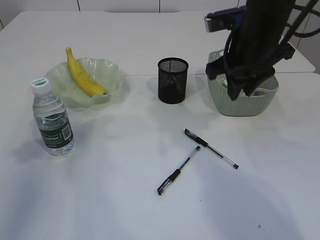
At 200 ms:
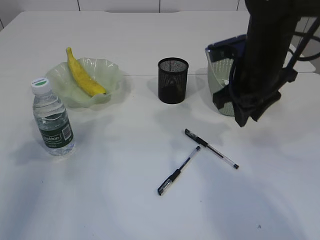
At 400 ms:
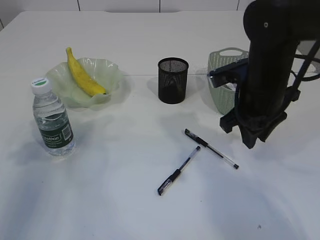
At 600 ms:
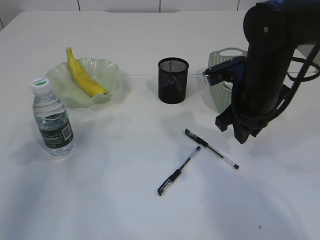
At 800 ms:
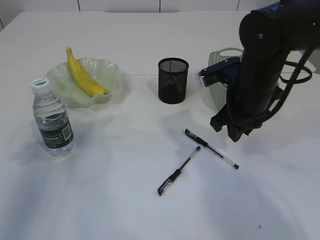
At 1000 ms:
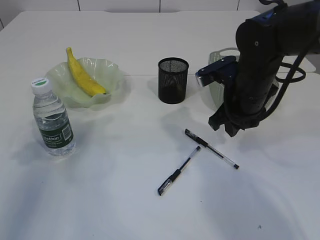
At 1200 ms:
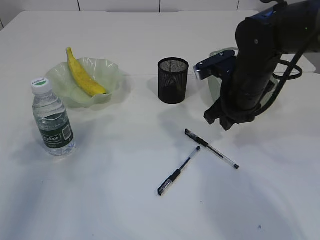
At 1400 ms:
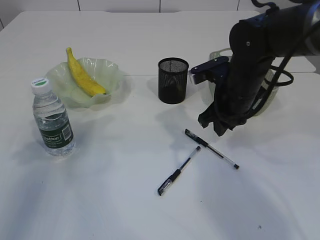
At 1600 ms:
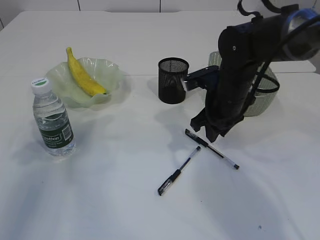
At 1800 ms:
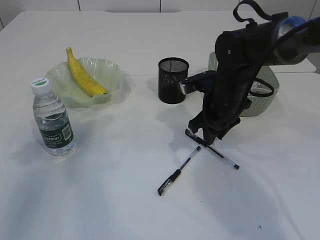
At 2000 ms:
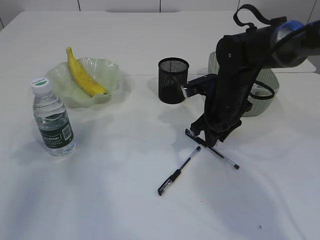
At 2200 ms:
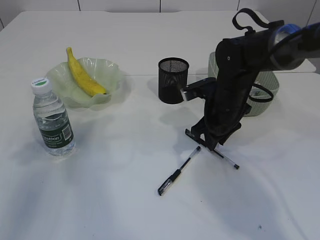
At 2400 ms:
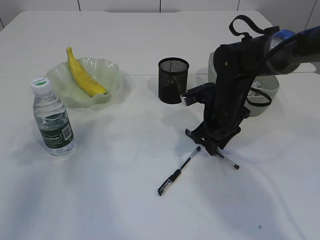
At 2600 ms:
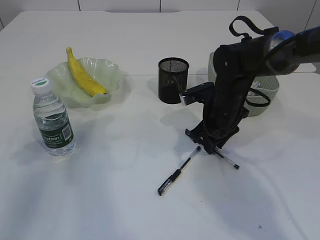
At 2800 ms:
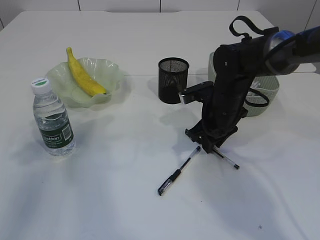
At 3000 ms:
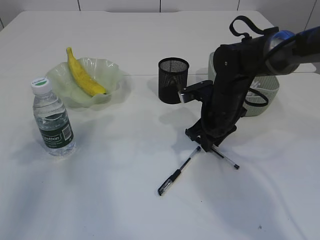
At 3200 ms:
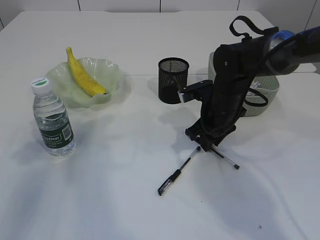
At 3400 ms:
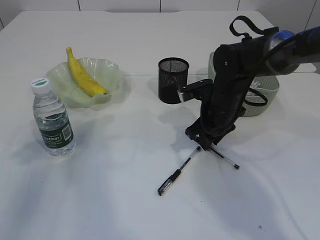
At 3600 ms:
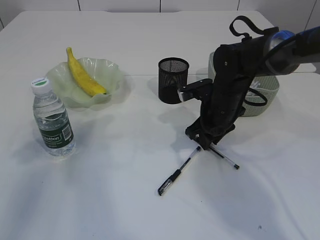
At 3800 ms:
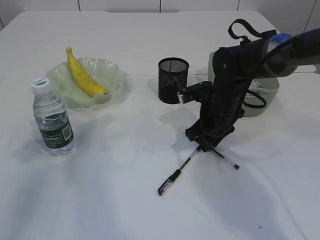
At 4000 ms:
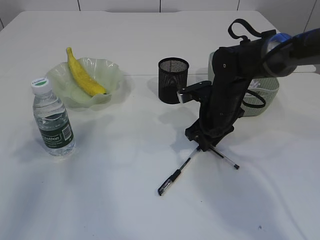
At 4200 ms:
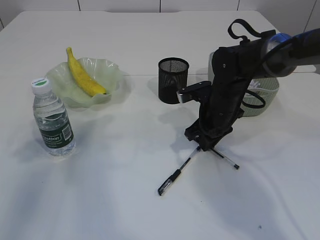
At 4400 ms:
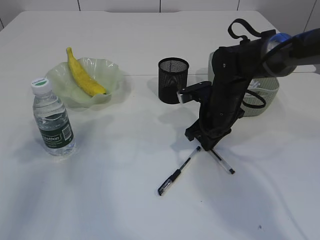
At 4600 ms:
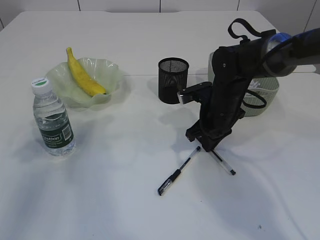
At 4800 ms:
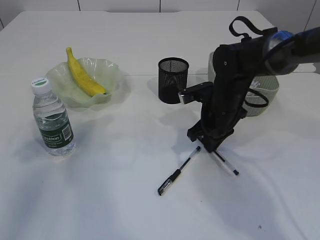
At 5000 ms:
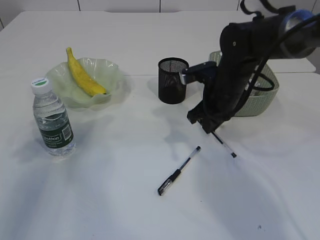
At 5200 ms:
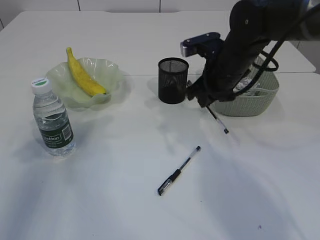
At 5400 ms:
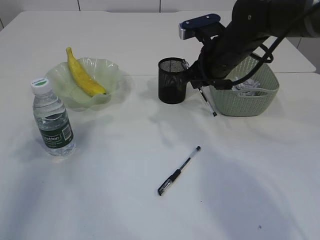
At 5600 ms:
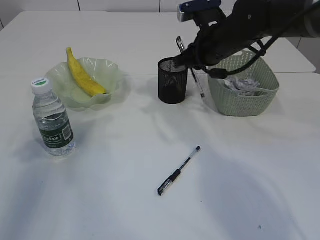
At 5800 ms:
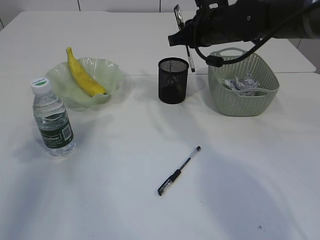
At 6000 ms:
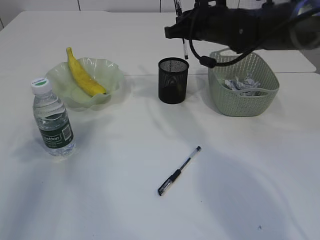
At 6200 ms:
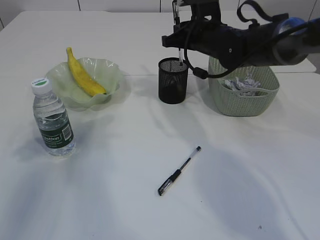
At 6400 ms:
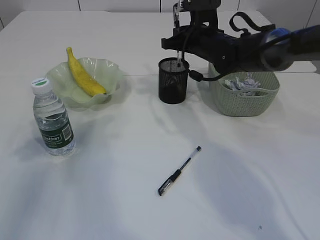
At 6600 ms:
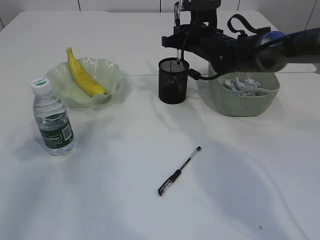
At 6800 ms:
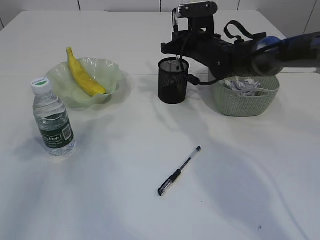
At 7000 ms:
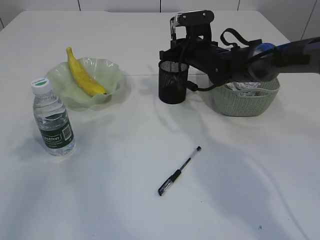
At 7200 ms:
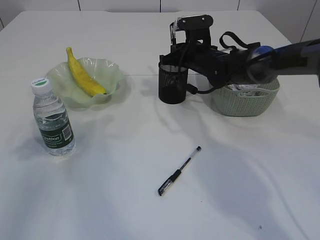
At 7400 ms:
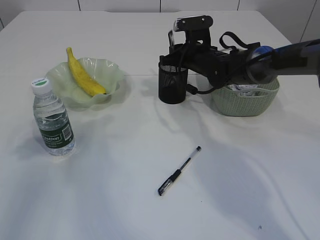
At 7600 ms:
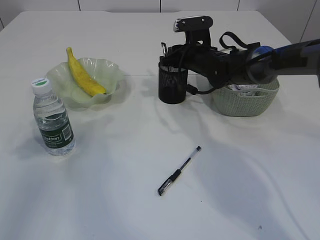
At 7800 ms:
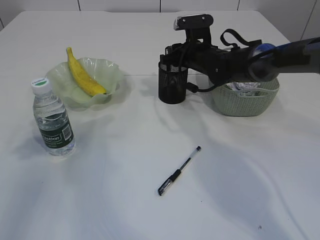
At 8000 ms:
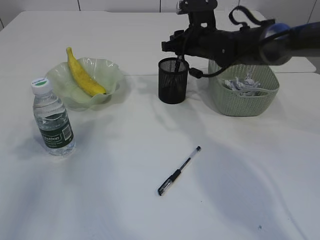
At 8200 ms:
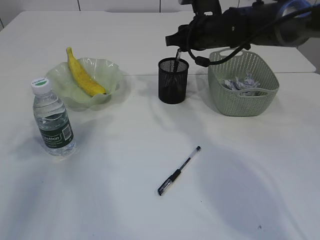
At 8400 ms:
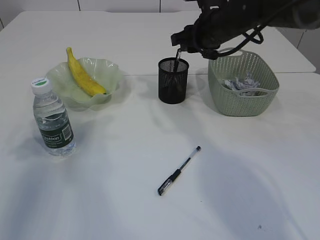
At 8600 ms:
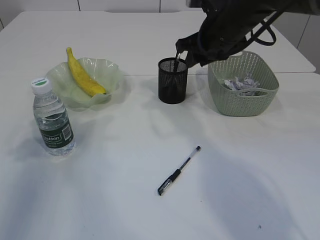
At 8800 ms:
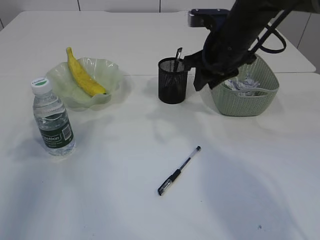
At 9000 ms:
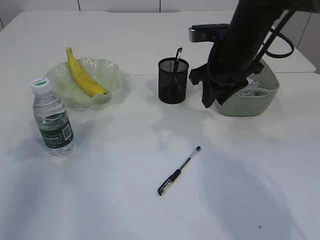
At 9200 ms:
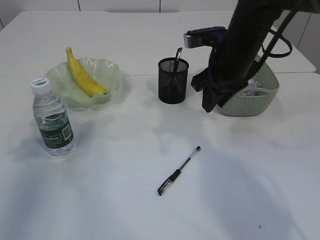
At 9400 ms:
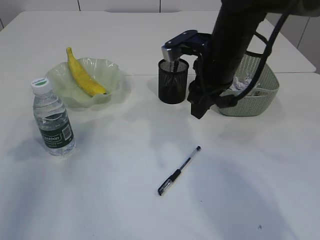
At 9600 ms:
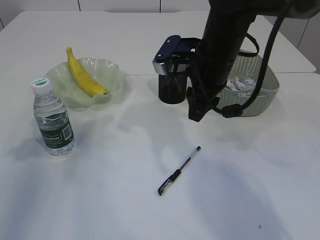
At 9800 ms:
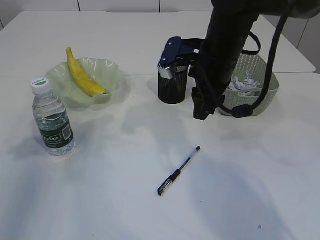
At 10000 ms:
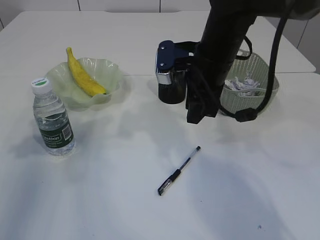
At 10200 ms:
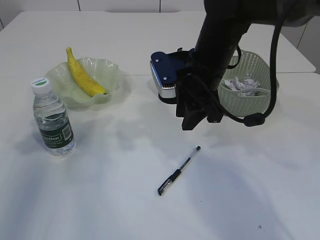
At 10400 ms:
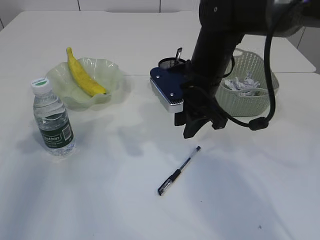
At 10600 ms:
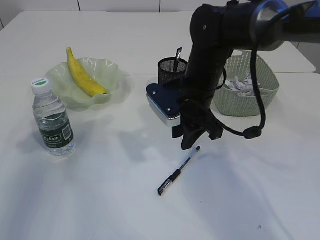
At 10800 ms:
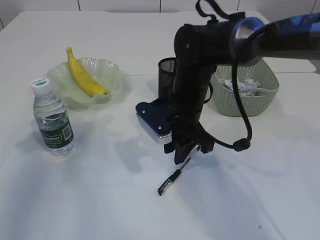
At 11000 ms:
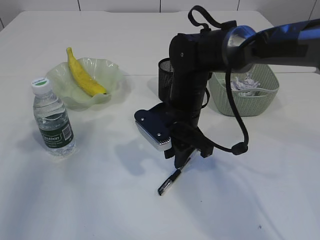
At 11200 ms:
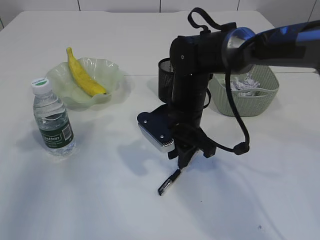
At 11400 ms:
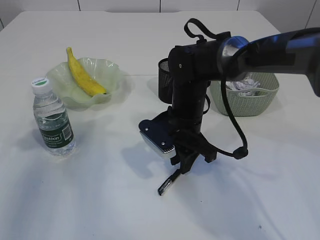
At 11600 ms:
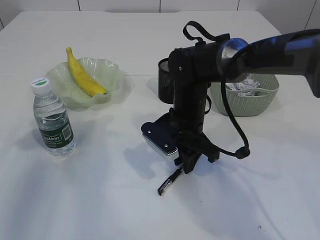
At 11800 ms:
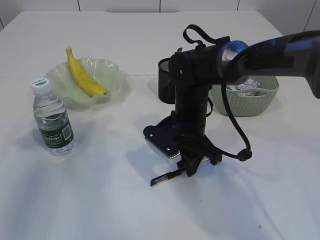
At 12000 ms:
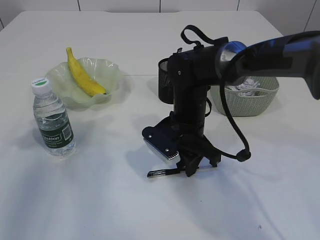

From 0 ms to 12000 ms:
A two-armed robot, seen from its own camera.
Step, from 0 ms to 5000 ms: Pick up the pen with right arm.
Step, from 5200 ms to 8200 ms: Place the pen into the pen holder.
From 0 ms to 1600 ms: The right gripper travels downward by approximately 10 cm.
From 1600 ms to 3000 ms: The grippers make only small movements.
From 3000 ms to 4400 ms: The right gripper closes its fingers.
From 4400 ms to 6000 ms: The right gripper travels upward and forward by about 15 cm.
From 6000 ms to 7600 ms: The right gripper travels downward by some 10 cm, and opens up.
From 7600 ms to 9000 ms: The right gripper shifts about 15 cm backward and upward.
From 9000 ms to 10400 ms: The right gripper travels to the left by about 5 cm.
From 10400 ms to 12000 ms: The right gripper moves downward, approximately 10 cm.

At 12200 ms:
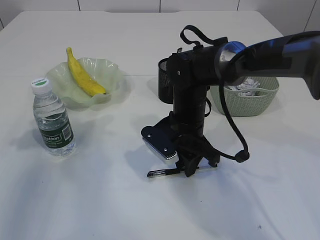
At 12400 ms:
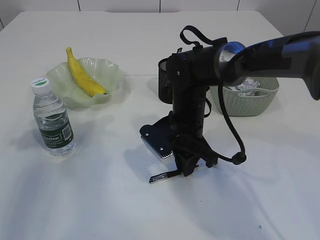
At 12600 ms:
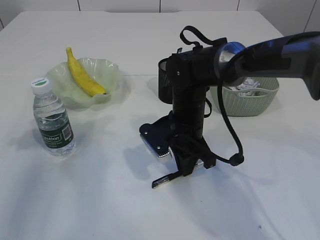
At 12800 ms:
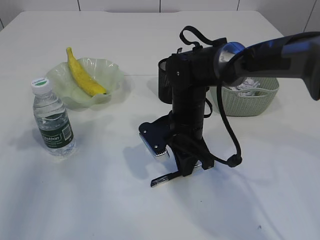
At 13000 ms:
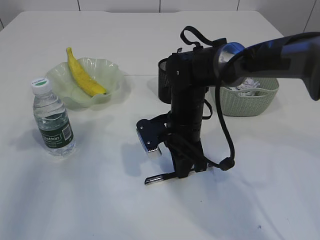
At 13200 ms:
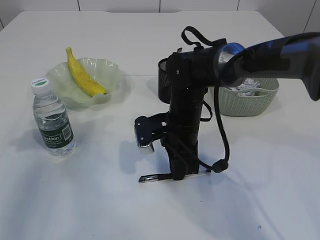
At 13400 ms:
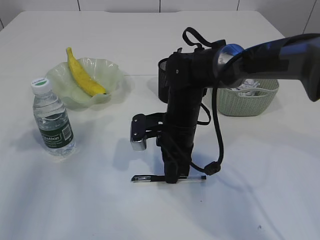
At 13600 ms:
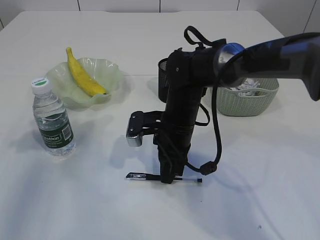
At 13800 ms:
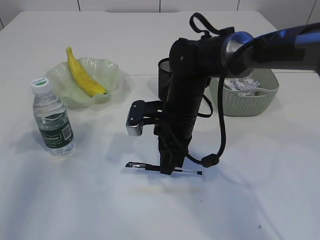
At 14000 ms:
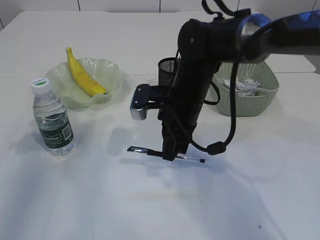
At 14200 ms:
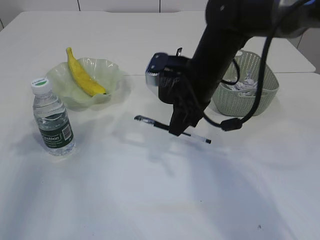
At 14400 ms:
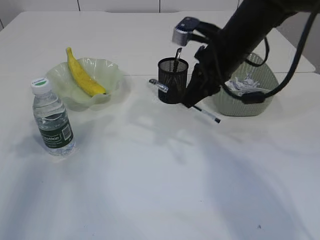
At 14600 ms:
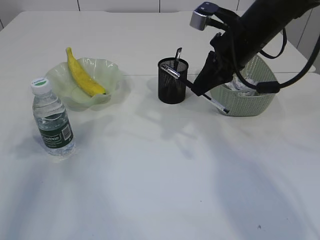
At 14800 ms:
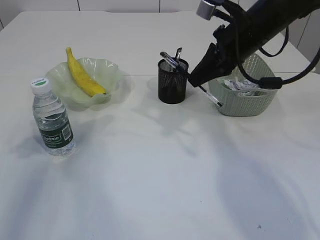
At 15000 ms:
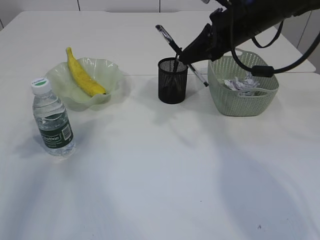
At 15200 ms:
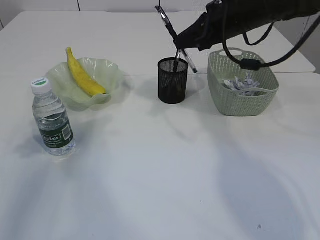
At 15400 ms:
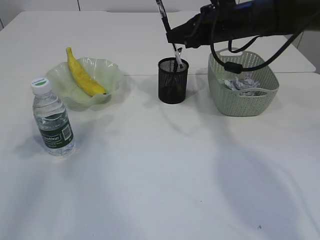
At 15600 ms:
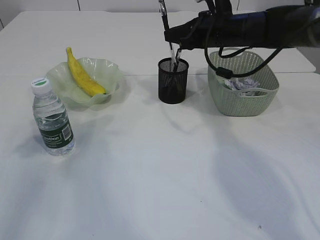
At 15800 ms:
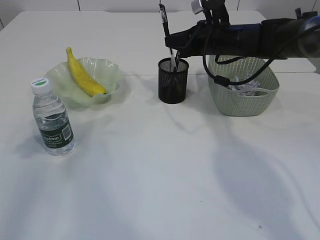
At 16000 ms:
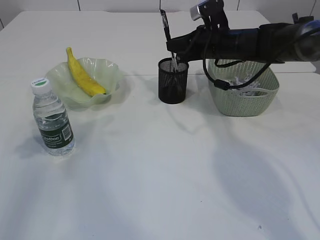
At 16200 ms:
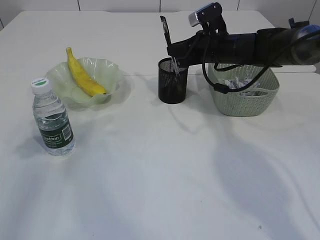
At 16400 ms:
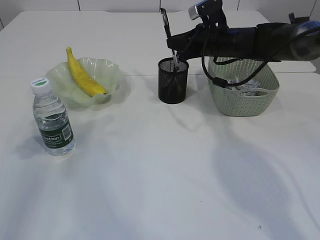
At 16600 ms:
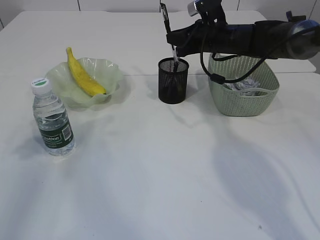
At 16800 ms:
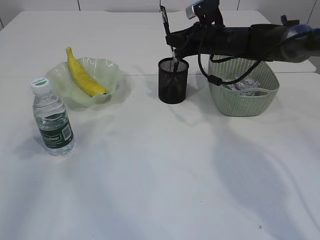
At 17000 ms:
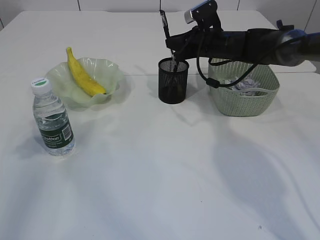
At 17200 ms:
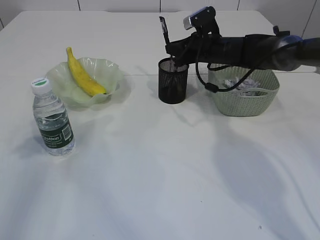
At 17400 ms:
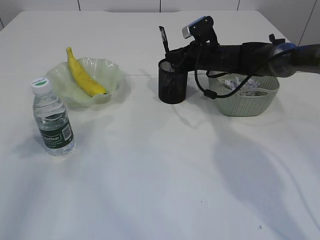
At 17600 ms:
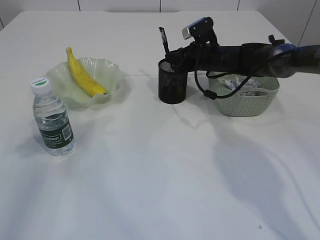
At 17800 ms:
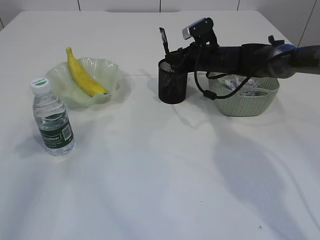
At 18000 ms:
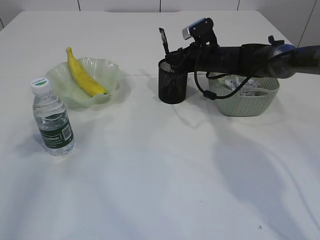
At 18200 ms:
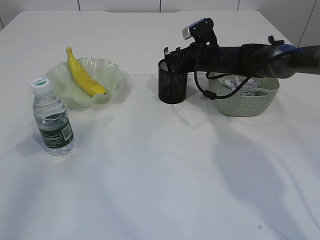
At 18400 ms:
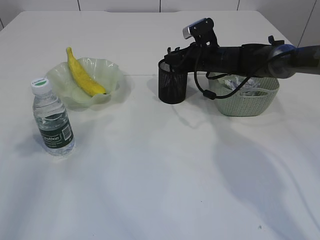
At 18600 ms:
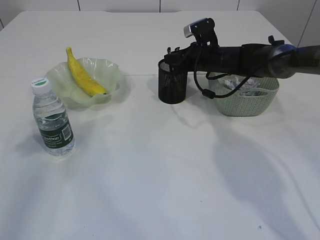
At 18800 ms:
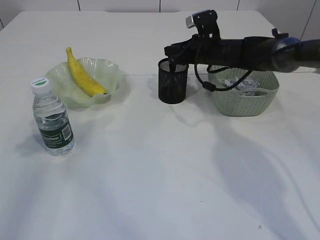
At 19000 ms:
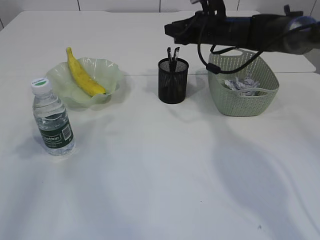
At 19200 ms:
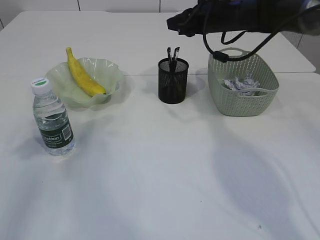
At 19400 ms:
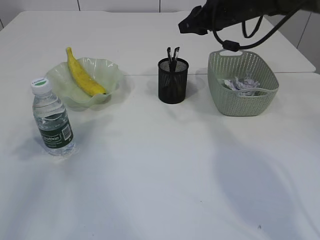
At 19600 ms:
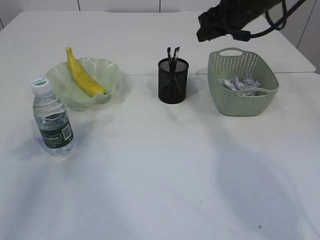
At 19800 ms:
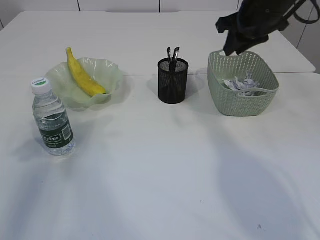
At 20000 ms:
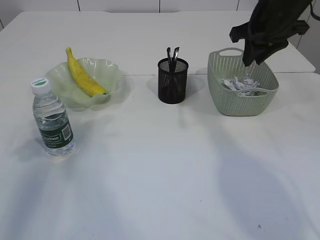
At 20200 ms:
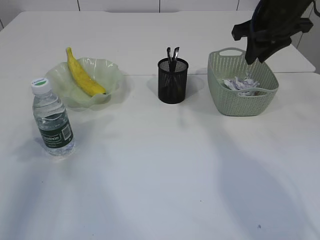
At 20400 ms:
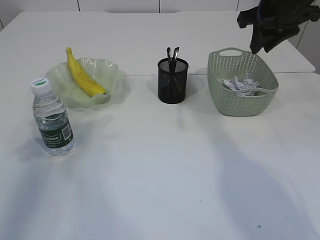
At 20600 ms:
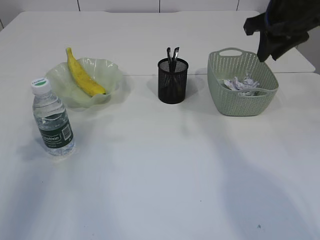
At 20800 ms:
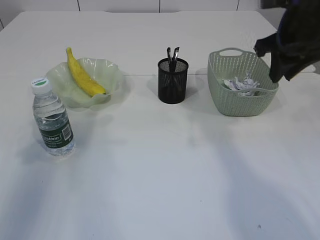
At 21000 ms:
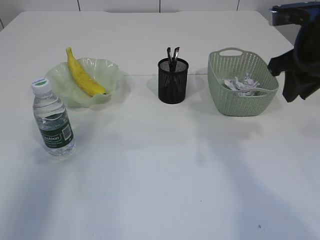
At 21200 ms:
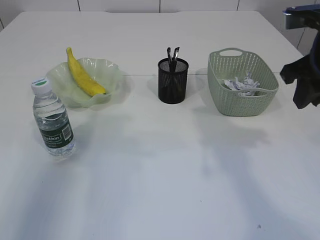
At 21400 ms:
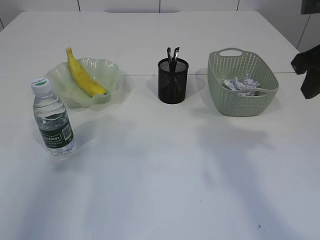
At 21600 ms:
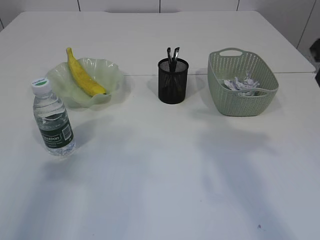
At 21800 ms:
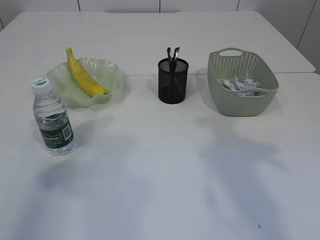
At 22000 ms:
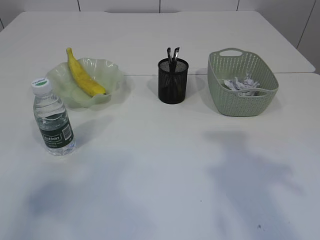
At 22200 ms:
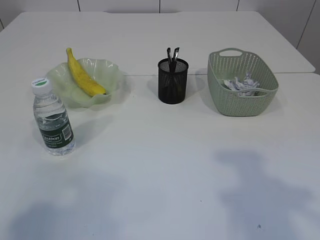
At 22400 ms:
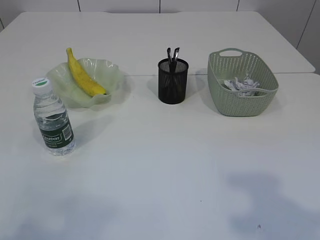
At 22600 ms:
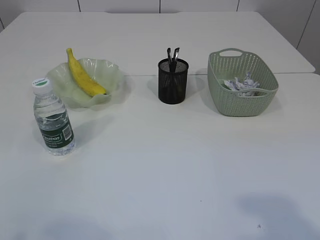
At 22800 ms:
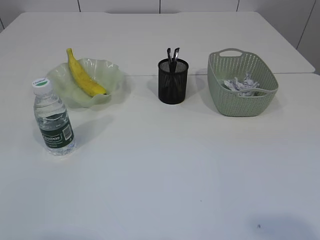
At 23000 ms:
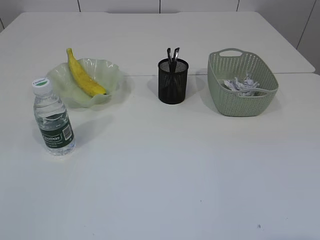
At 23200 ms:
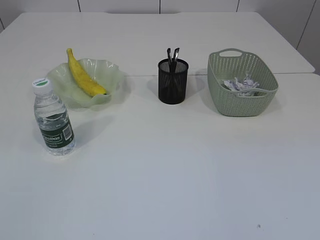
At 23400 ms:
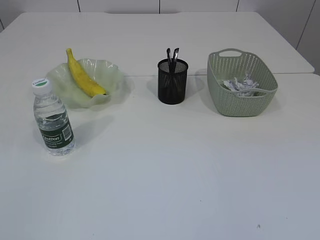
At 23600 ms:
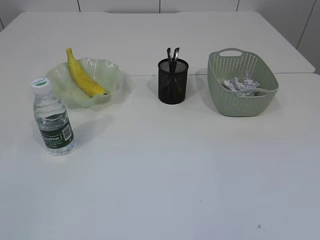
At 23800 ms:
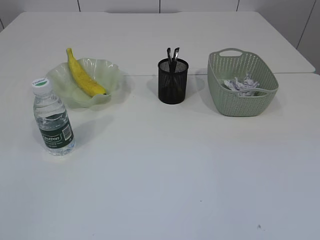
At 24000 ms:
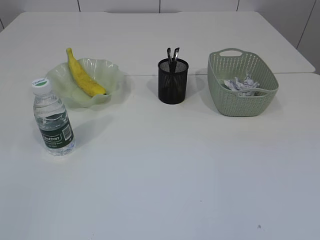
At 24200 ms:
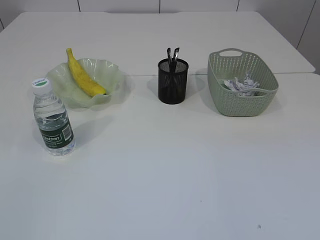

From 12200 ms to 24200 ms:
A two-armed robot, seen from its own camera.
Step, from 14200 ms to 19000 ms: Place the pen into the pen holder.
From 13800 ms to 15200 ms: The right gripper moves upward, to the right and forward, some 20 cm.
From 15200 ms to 16600 ms: The right gripper shifts roughly 10 cm forward and downward.
From 16600 ms to 18200 ms: The right gripper heads downward, covering approximately 5 cm.
From 18200 ms to 19800 ms: The right gripper shifts about 20 cm upward and backward.
From 19800 ms to 21200 ms: The right gripper heads backward, covering approximately 15 cm, while the left gripper shifts approximately 10 cm upward, backward and to the right.
From 21200 ms to 22600 ms: Both grippers travel together backward, some 25 cm.
